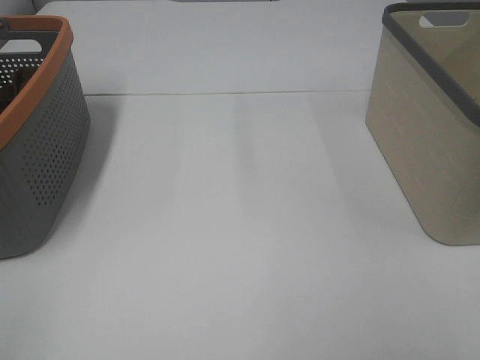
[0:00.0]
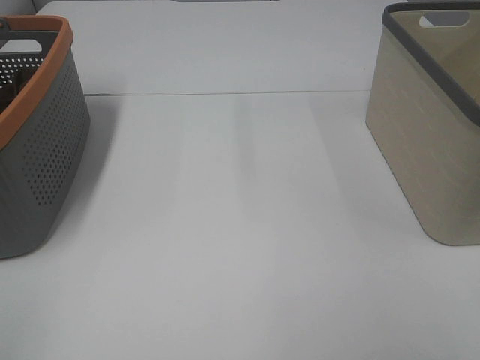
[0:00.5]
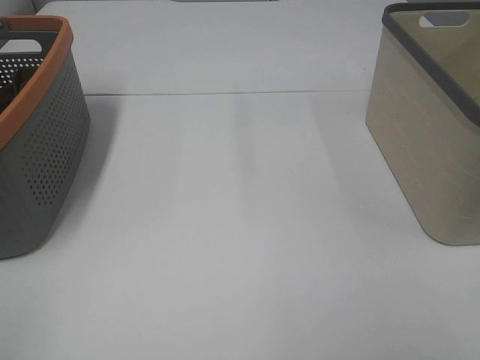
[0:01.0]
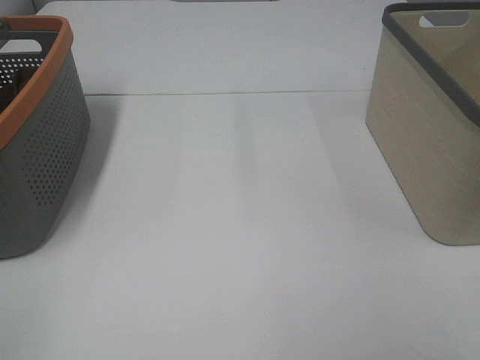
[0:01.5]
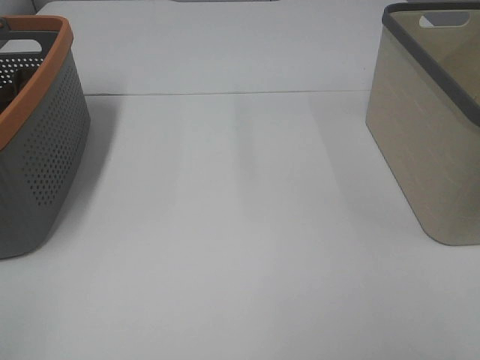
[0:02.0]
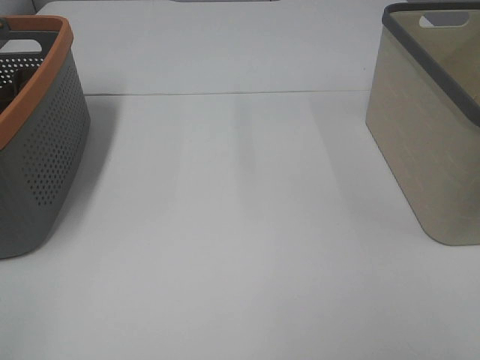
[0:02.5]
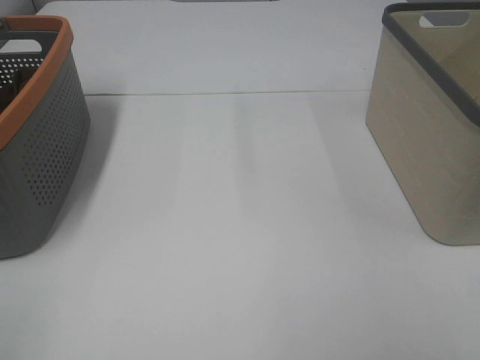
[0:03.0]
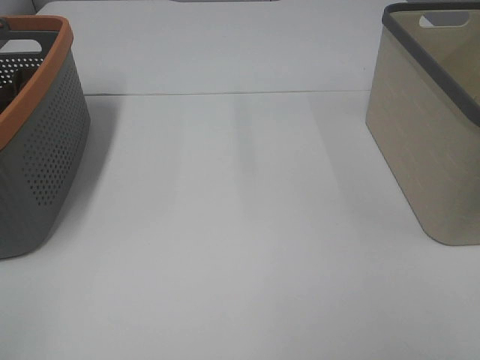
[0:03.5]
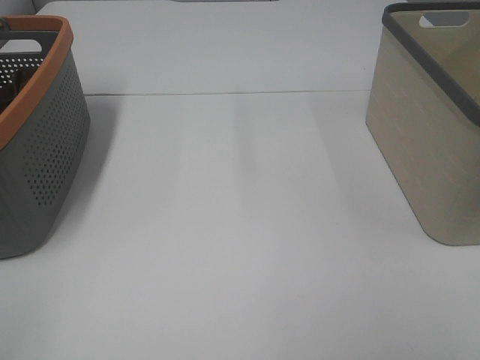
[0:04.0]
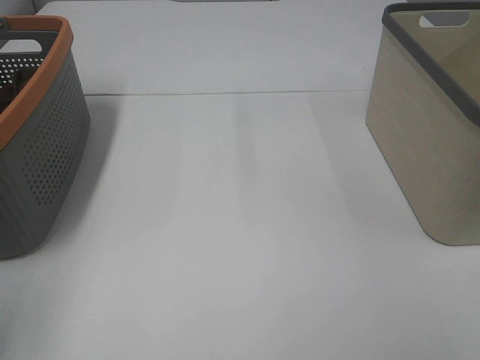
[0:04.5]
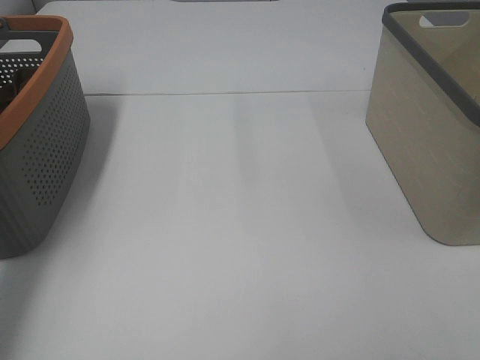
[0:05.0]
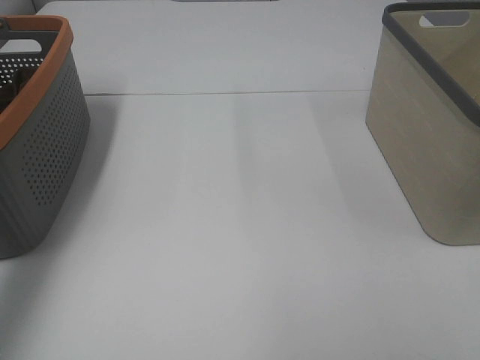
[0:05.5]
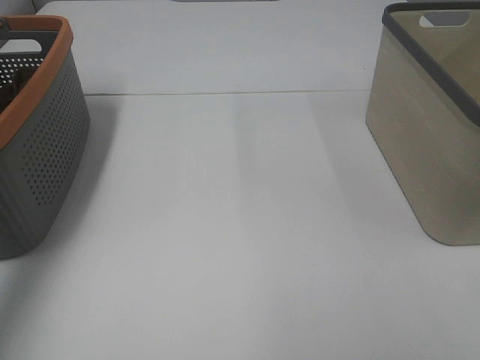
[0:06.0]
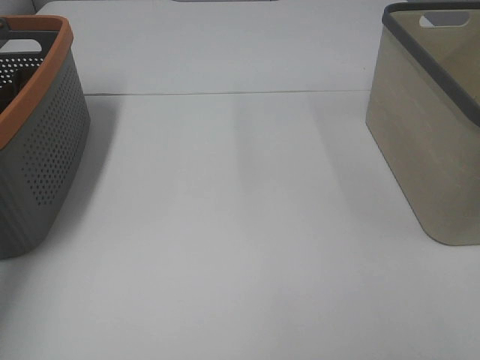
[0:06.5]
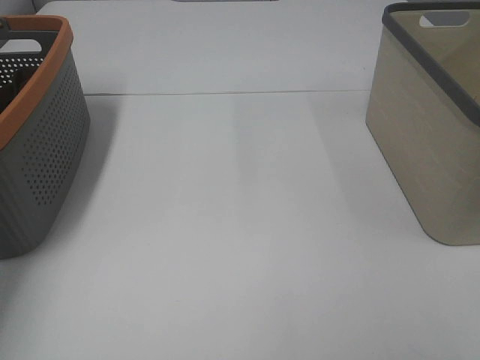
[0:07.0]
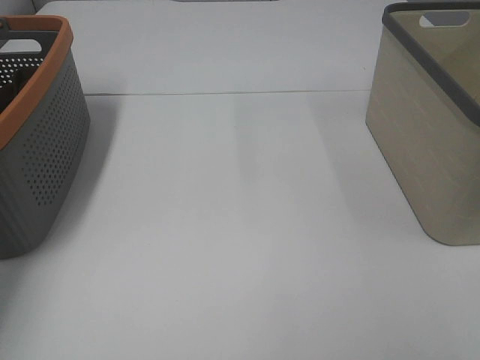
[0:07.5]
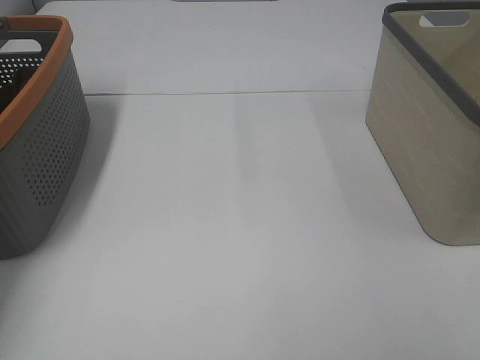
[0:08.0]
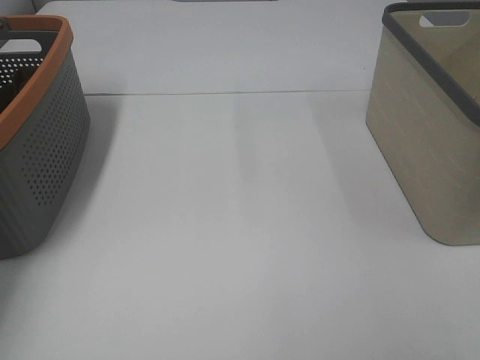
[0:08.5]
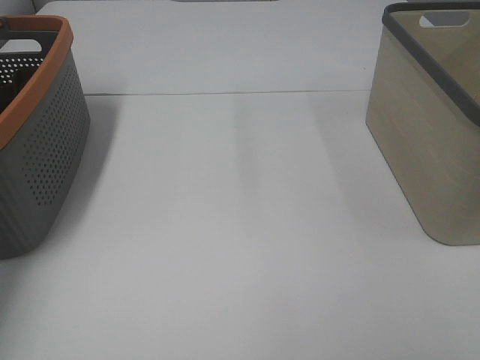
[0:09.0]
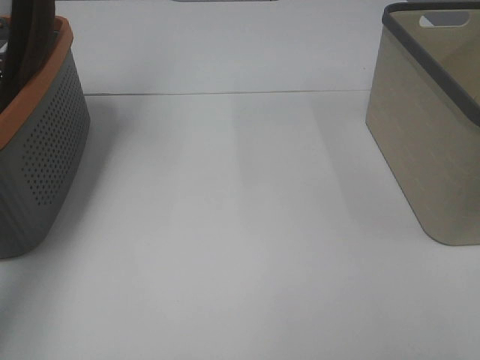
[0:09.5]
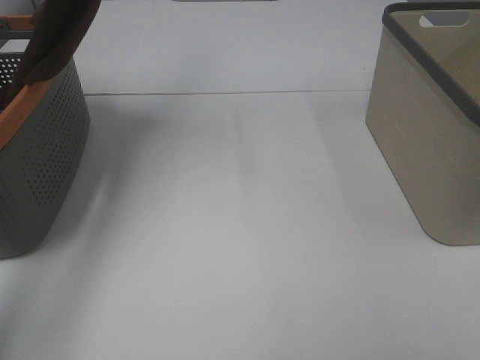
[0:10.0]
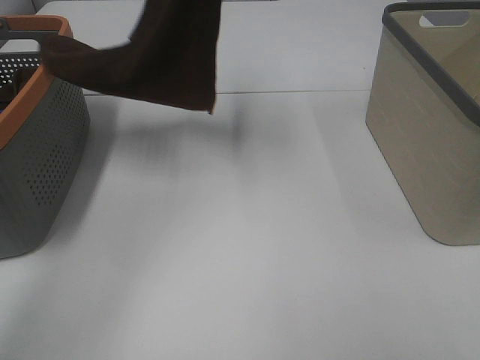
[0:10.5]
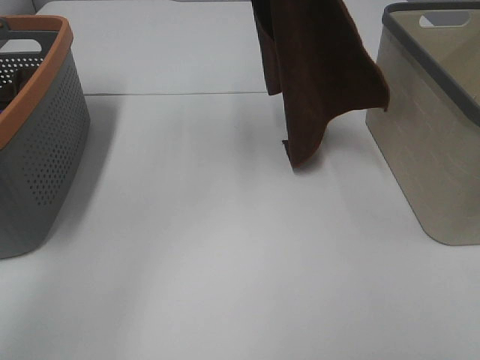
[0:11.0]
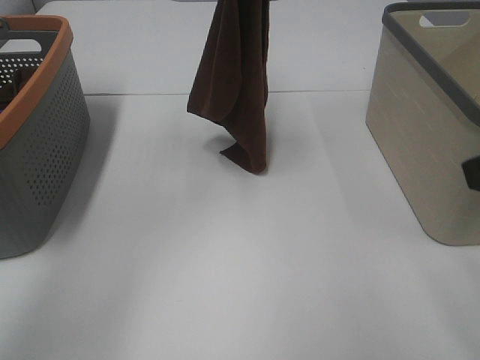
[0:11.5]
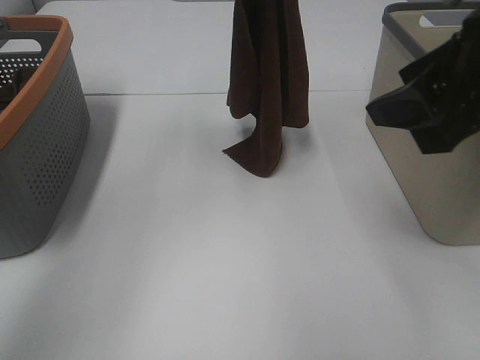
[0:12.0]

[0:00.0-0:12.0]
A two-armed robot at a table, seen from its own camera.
Task of the whole recording: Remove the towel and place it.
0:00.0 to 0:04.0: Neither gripper changes place.
0:04.0 to 0:06.0: The left gripper is displaced forward by roughly 35 cm.
0:06.0 to 0:08.0: The left gripper shifts some 15 cm downward, forward and to the left.
0:08.0 to 0:10.0: The left gripper is displaced upward and to the right by about 30 cm, and closes its fingers.
0:10.0 to 0:12.0: The right gripper is displaced forward and to the left by about 25 cm; the left gripper shifts roughly 15 cm to the right and downward.

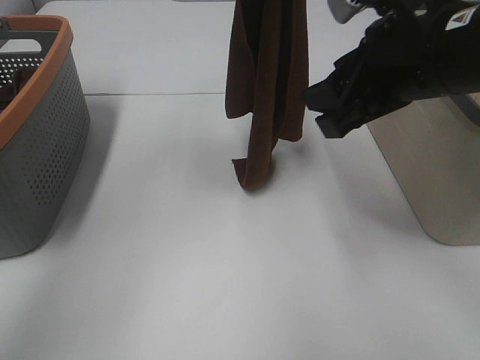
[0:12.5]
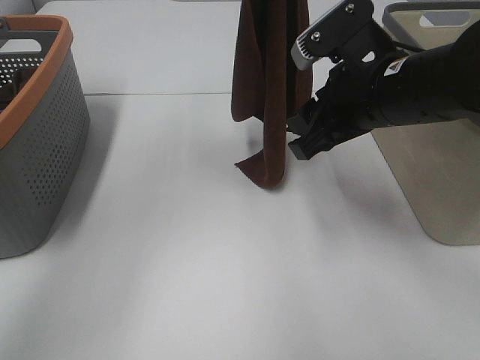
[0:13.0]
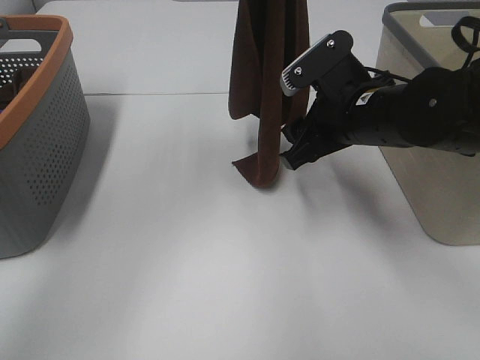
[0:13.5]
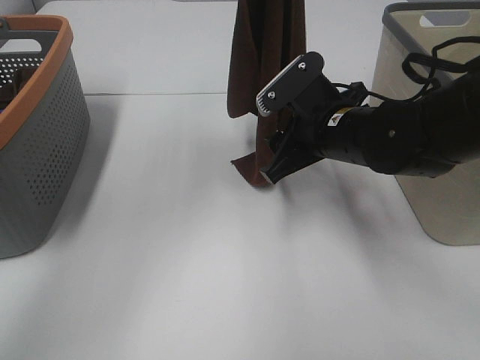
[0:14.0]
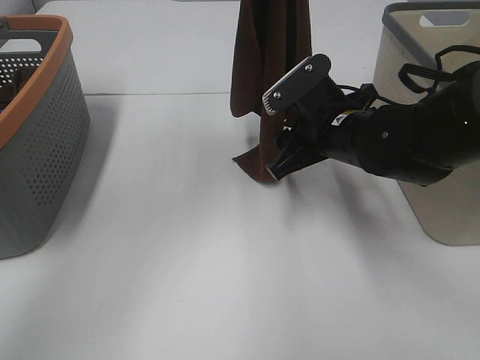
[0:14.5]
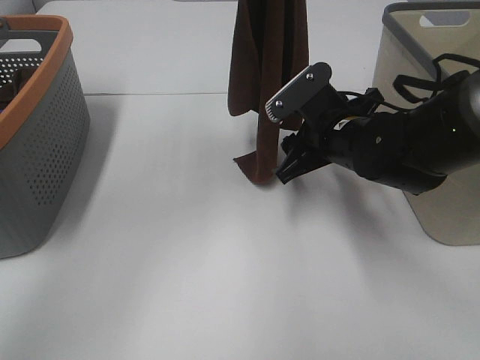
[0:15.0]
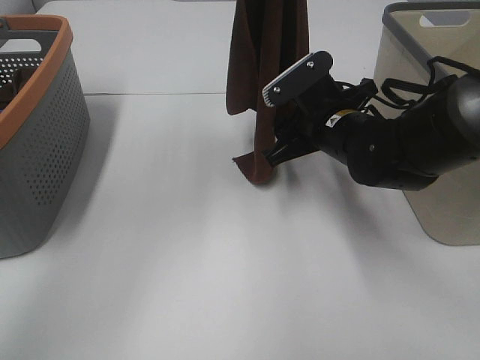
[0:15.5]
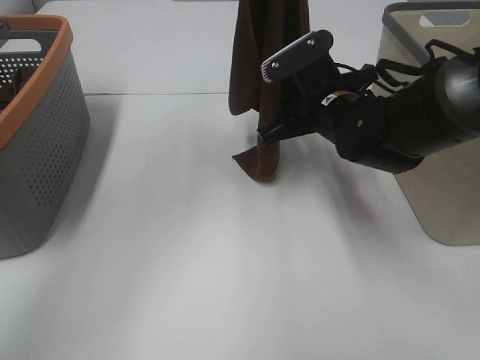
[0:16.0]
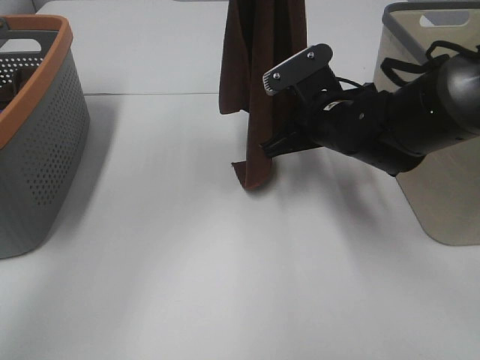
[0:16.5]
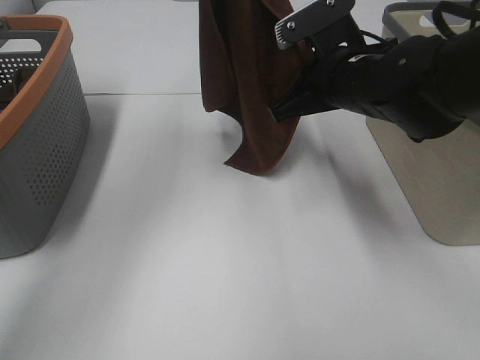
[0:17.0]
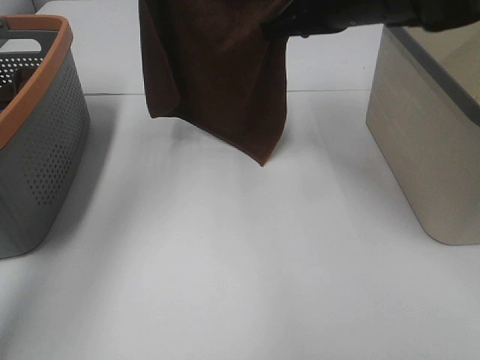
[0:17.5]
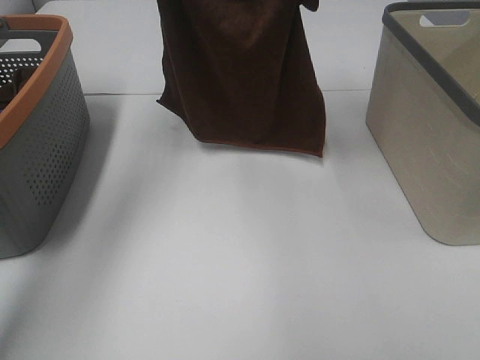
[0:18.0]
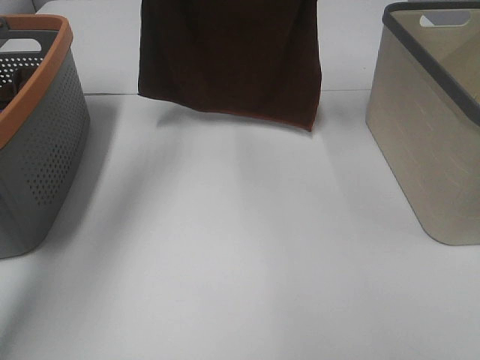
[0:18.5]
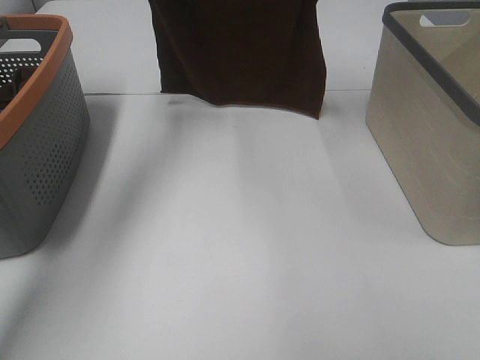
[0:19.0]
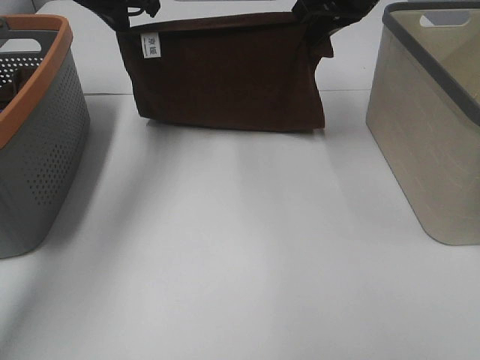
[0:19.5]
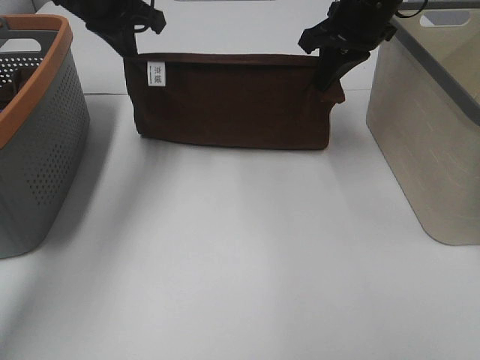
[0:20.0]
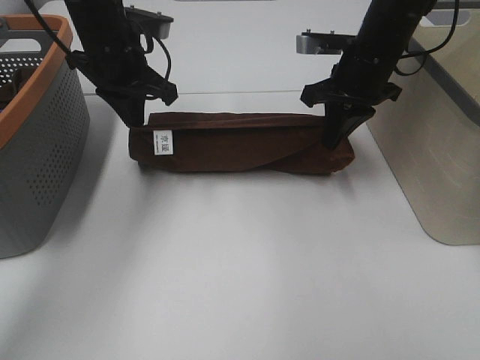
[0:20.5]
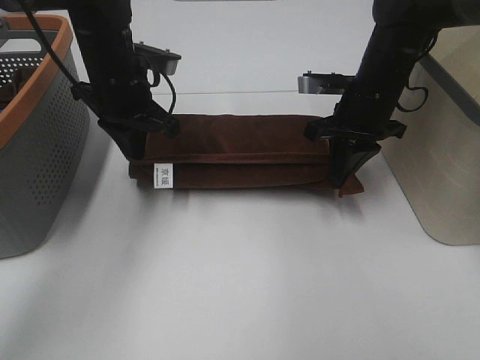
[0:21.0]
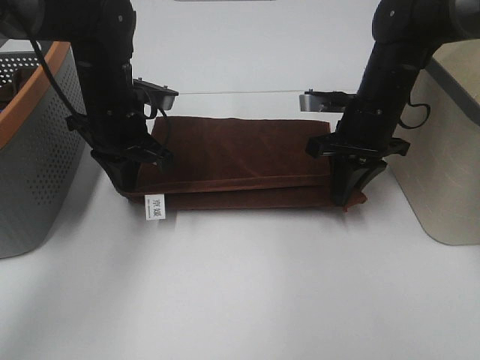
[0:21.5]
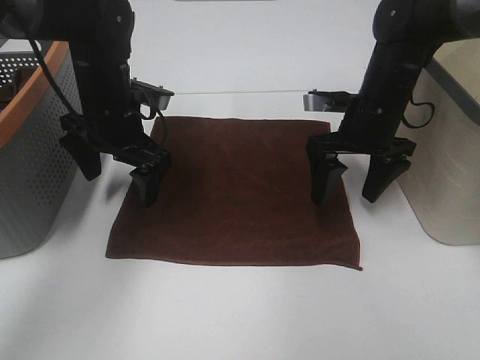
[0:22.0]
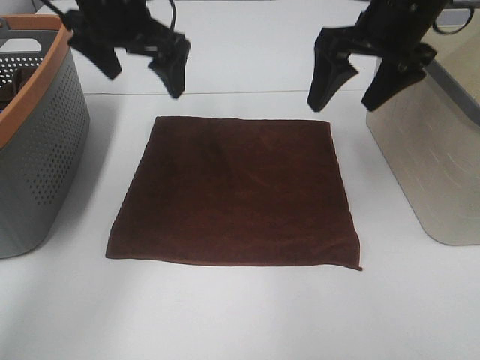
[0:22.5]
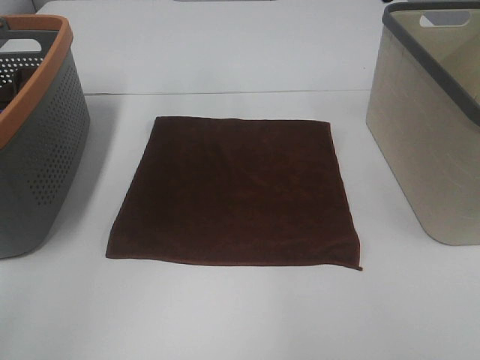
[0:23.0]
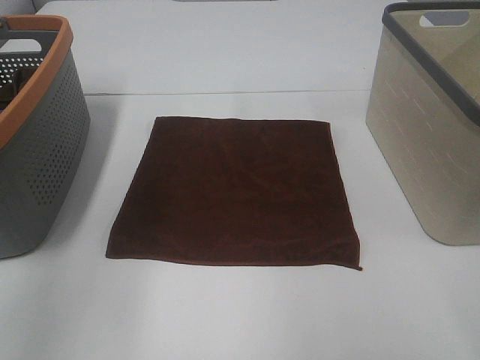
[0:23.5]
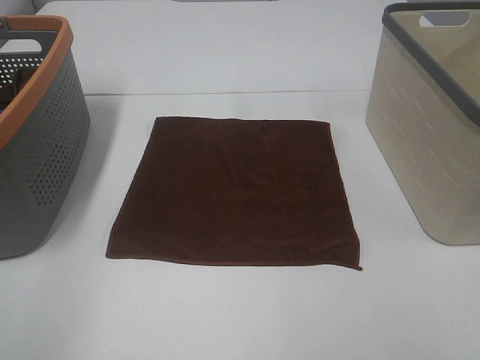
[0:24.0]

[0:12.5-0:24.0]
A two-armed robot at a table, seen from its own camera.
Task of the whole recording: Remove the towel and place it.
Step, 0:12.5 to 0:14.5: Right hand: grab a corner of the brown towel and straighten it.
Step, 0:15.0 to 0:17.0: Left hand: spread the brown towel flat on the table.
Step, 0:15.0 to 0:17.0: Right hand: spread the brown towel flat on the table.
0:12.5 to 0:14.5: The right gripper shifts roughly 15 cm downward and forward.
0:14.5 to 0:16.5: The right gripper closes up.
0:16.5 to 0:18.5: The right gripper goes approximately 25 cm upward and forward. Meanwhile the left gripper travels forward, to the left and downward by approximately 15 cm.
0:18.5 to 0:20.0: Both grippers move downward, about 10 cm.
0:20.0 to 0:22.0: The grippers both shift downward and backward by about 15 cm. The right gripper opens its fingers, while the left gripper opens up.
0:22.0 to 0:24.0: The left gripper goes approximately 35 cm backward and to the left, while the right gripper is displaced backward by roughly 35 cm.

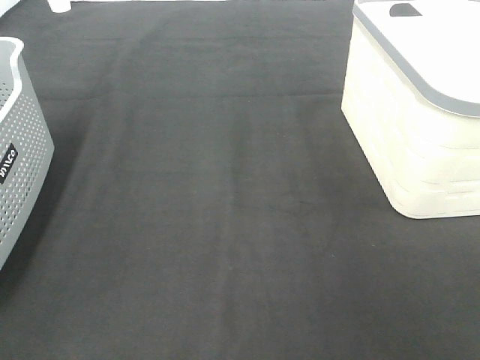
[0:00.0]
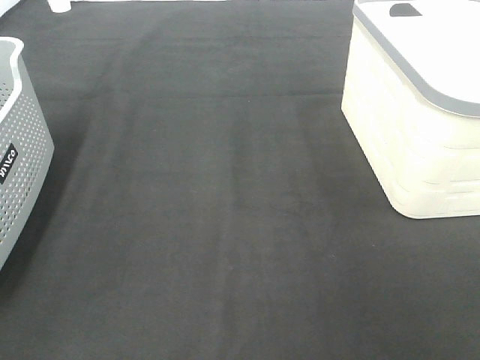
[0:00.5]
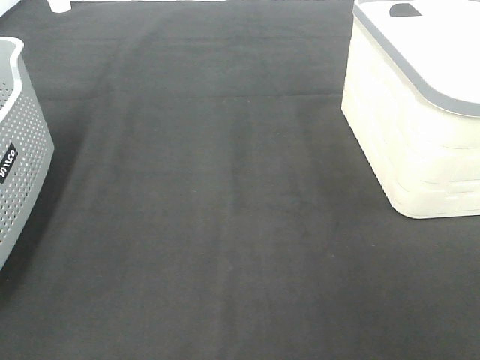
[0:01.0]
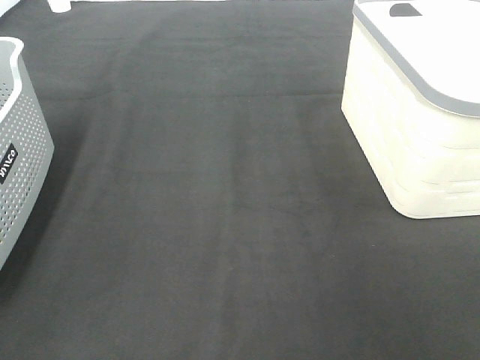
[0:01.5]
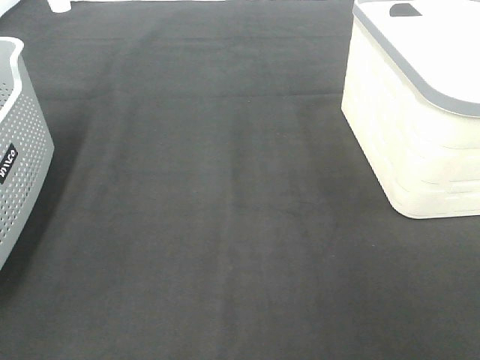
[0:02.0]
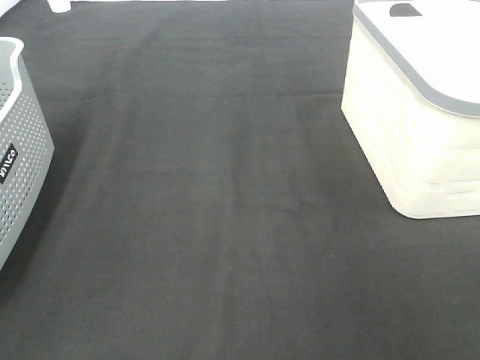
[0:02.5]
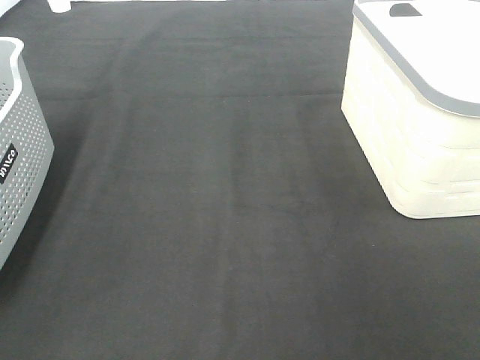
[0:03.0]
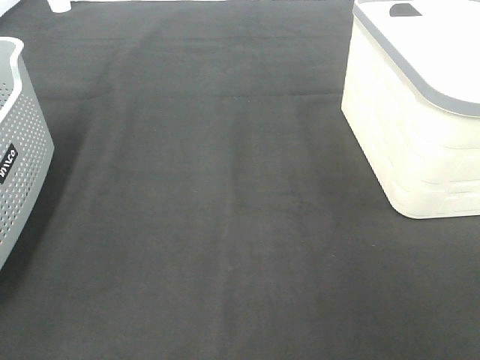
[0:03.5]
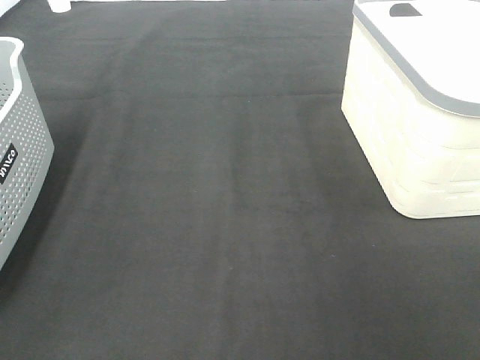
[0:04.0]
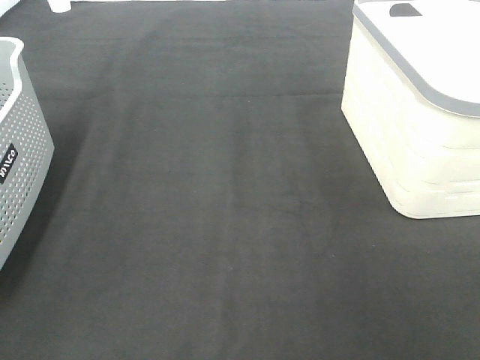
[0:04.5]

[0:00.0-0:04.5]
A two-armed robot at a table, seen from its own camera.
Task of the whole recording: Remove the towel and place it.
0:00.0 to 0:04.5: The two grippers keep their place.
